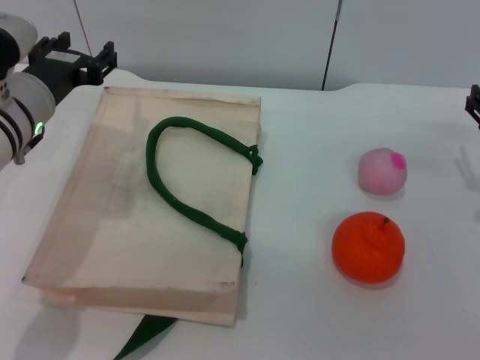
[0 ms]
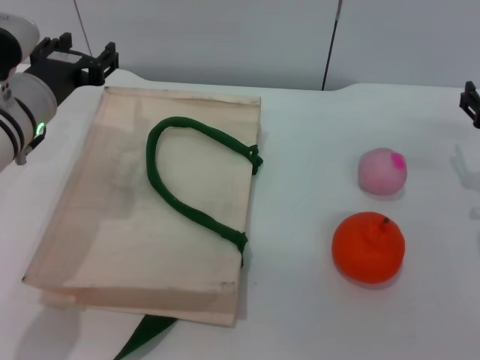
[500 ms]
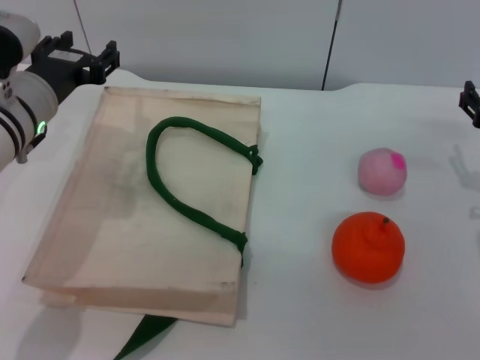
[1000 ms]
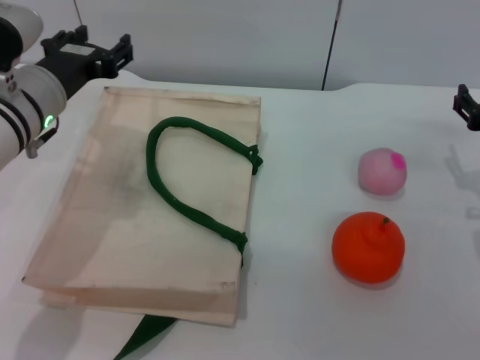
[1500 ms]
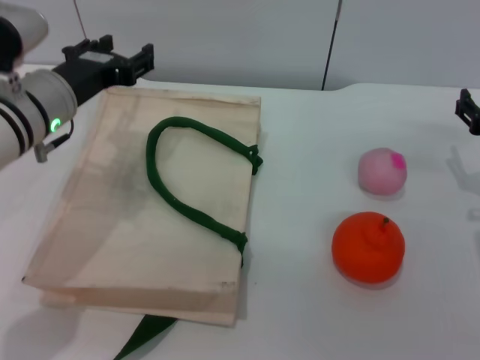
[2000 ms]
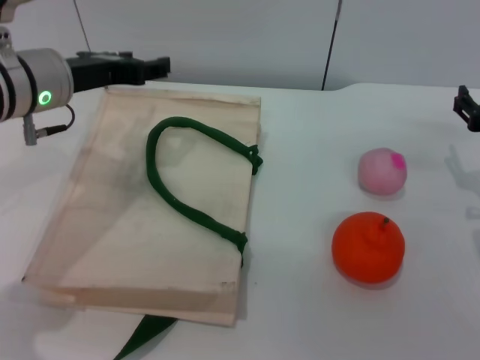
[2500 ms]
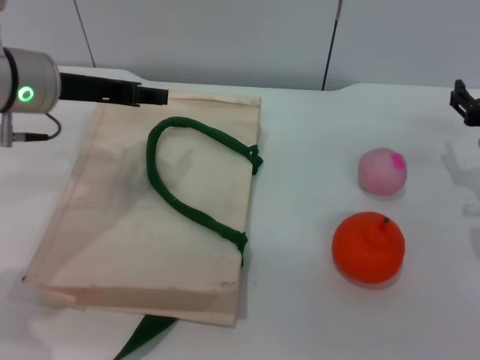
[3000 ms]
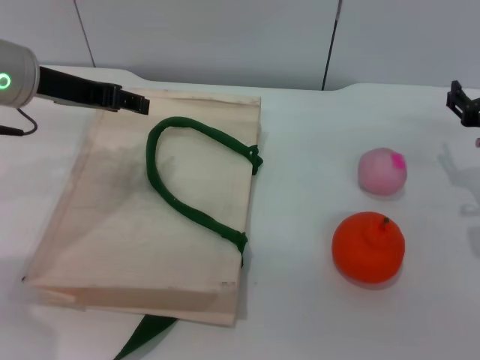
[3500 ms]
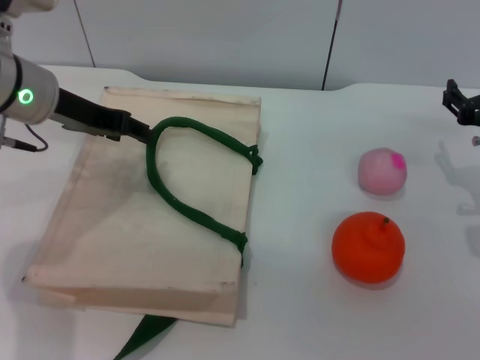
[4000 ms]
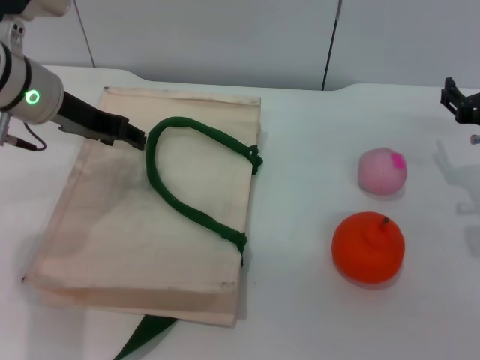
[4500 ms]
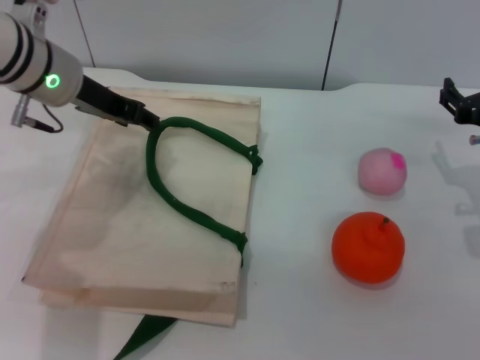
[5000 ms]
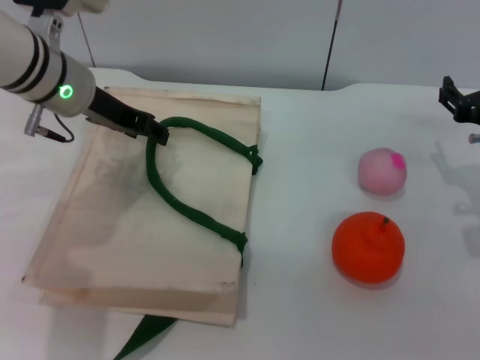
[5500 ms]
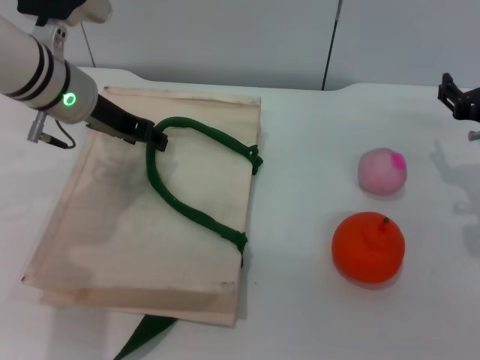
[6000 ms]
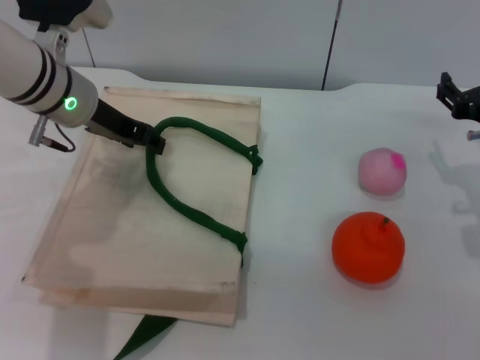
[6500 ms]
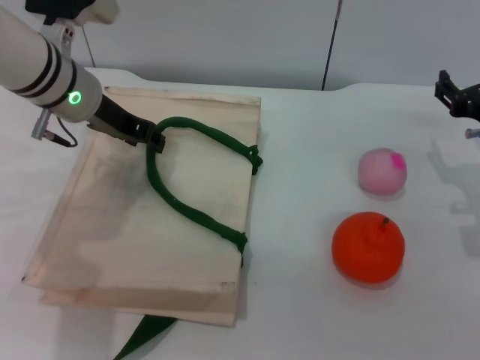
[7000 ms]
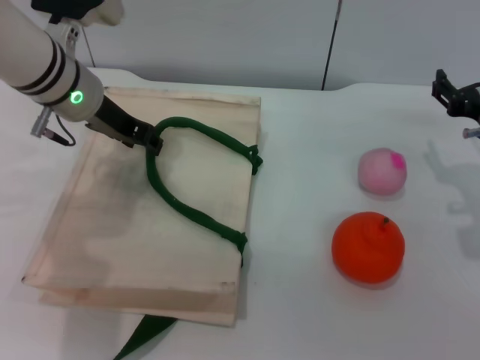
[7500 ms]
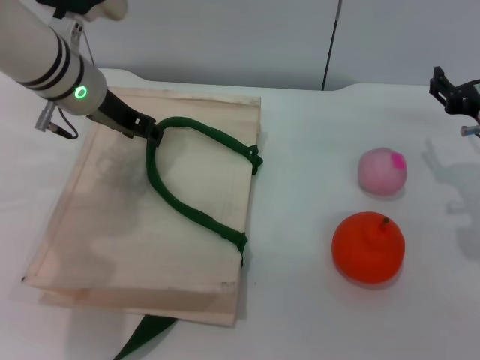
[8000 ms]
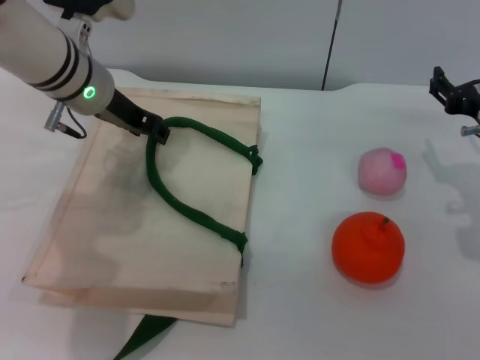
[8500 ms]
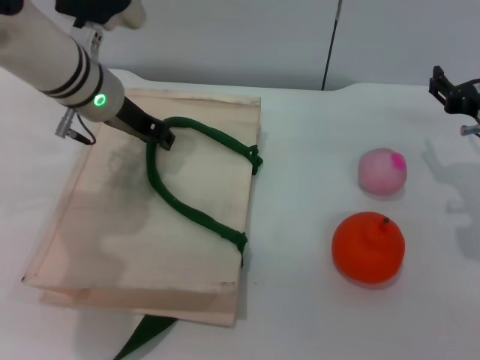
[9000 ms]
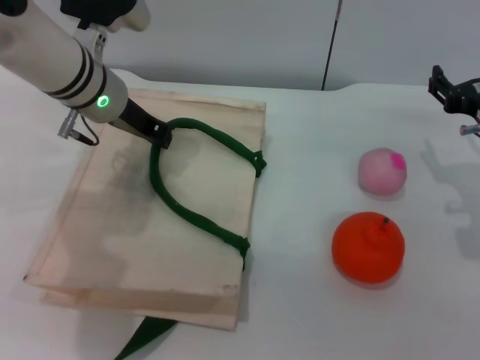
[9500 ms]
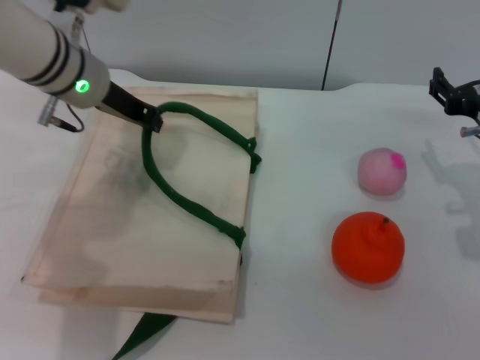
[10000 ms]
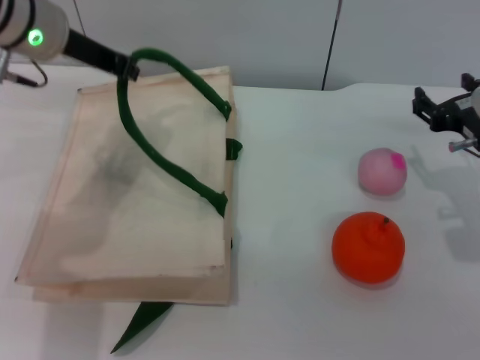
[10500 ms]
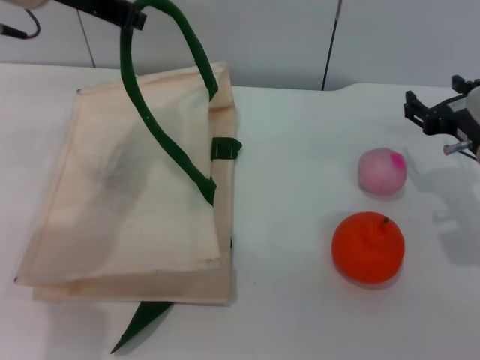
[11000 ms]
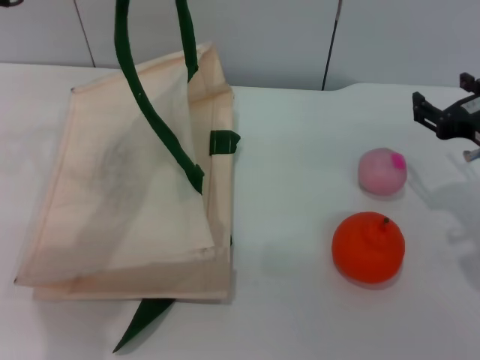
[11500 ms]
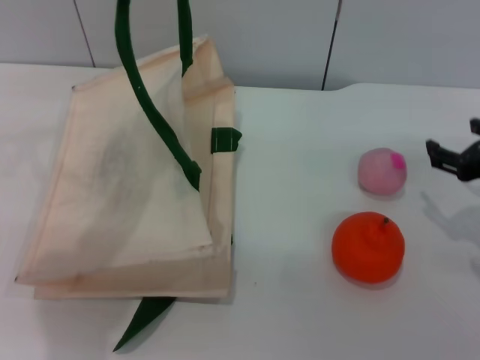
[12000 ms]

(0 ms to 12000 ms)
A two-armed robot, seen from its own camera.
Task of the whole recording: pick up the orange and peach from the table and place it in the white handbag.
Step, 0 ms - 10500 ms: Lift the woven bag with the left gripper to open it.
0 ms - 2000 ms: The grippers move only a little.
2000 ms - 4000 ms: The left gripper ends up some 5 cm from where it was.
4000 ms - 8000 ms: The grippers stay close to where they were, moving slightly.
8000 ms - 10000 ms: The left gripper closes its fingers.
10000 ms - 12000 ms: The left gripper goes approximately 15 cm upward. The right gripper heads backward, covering some 5 cm.

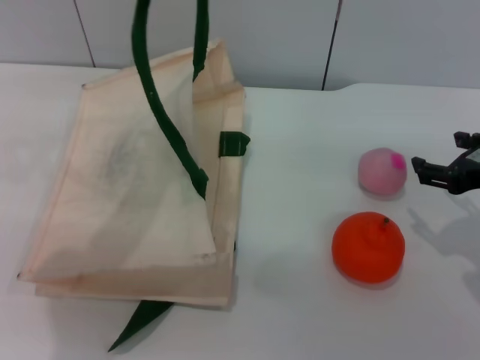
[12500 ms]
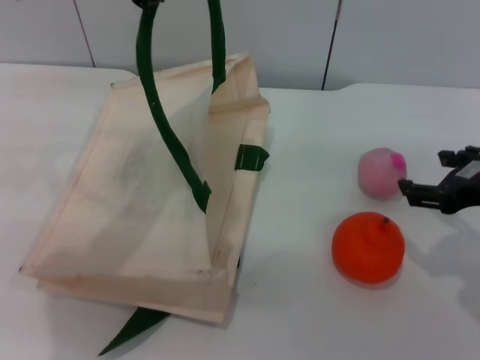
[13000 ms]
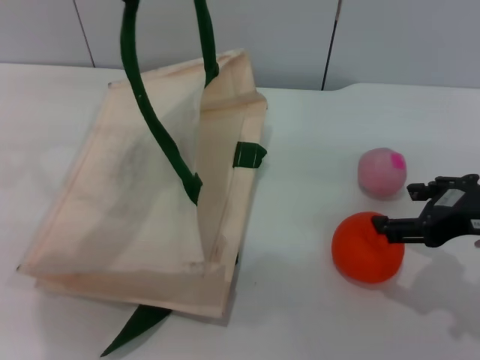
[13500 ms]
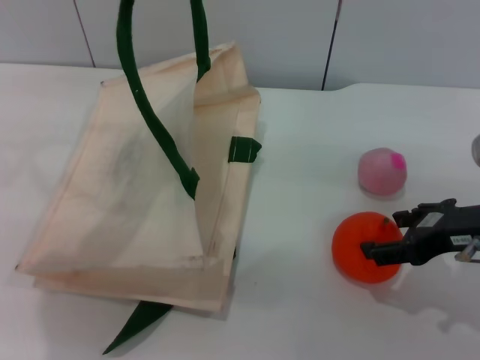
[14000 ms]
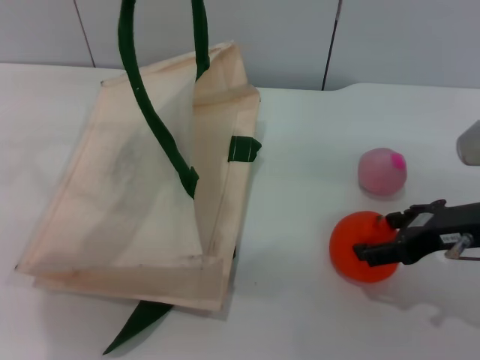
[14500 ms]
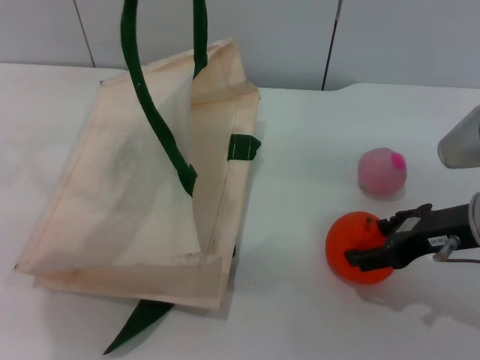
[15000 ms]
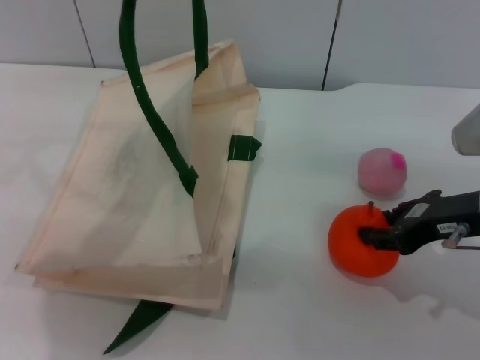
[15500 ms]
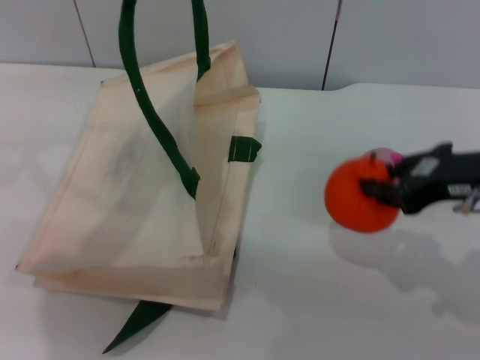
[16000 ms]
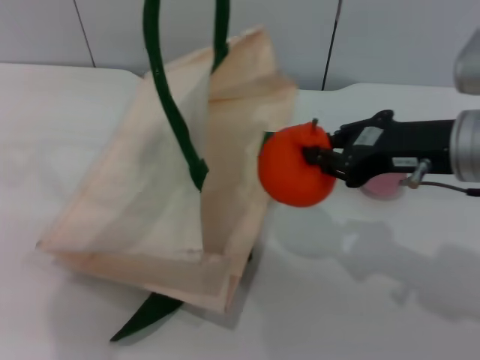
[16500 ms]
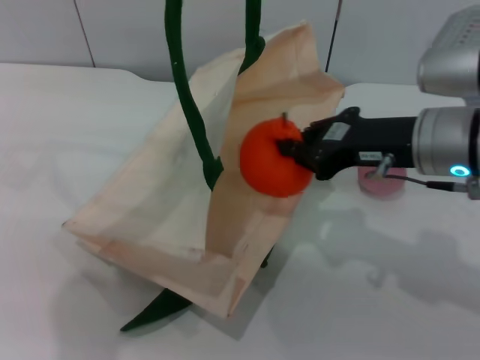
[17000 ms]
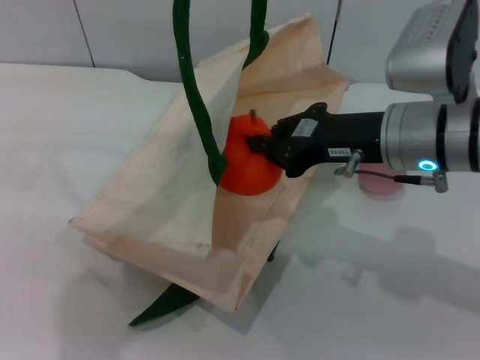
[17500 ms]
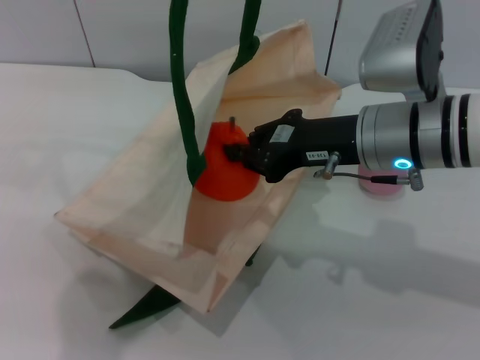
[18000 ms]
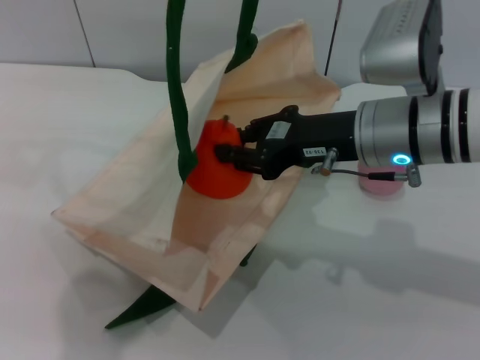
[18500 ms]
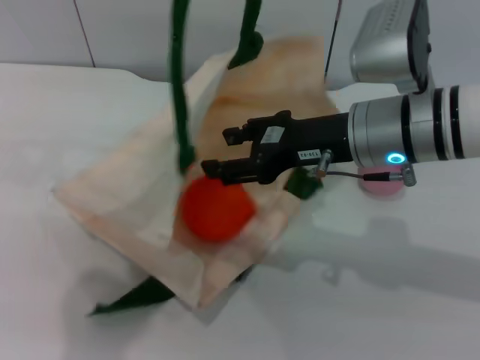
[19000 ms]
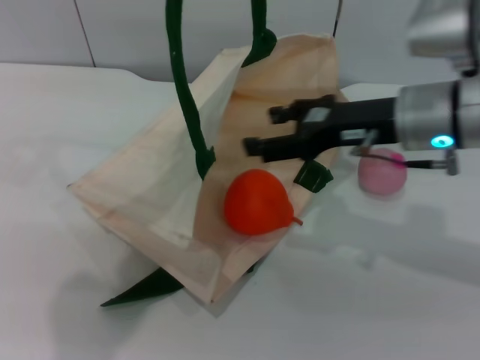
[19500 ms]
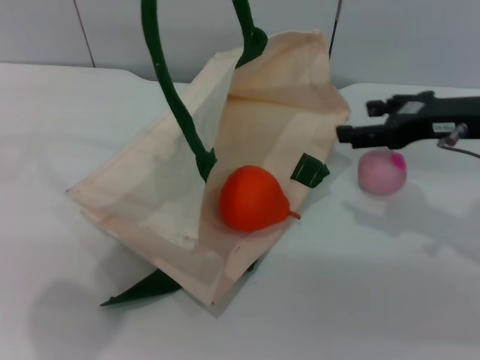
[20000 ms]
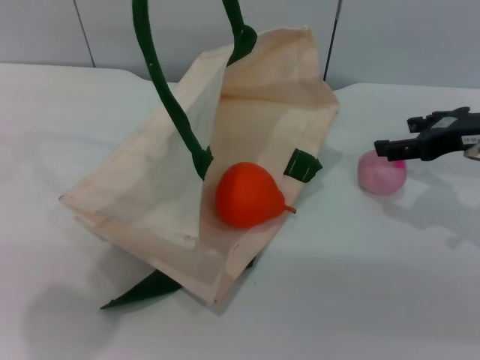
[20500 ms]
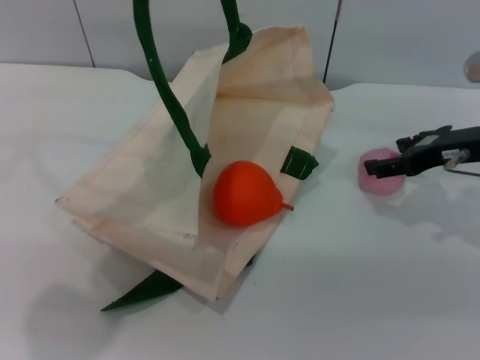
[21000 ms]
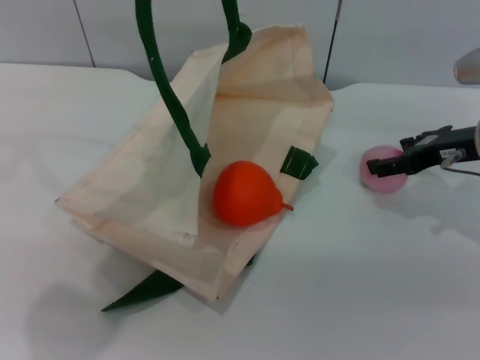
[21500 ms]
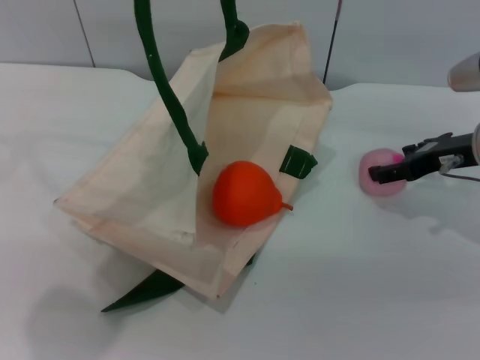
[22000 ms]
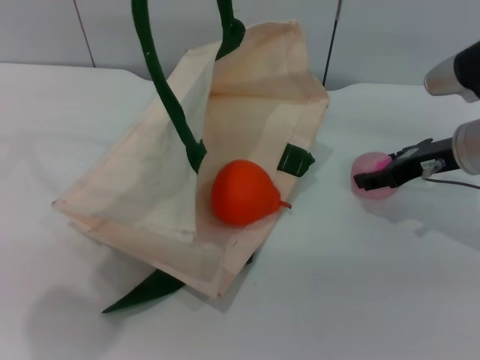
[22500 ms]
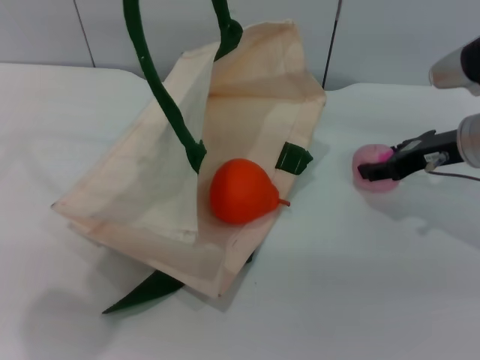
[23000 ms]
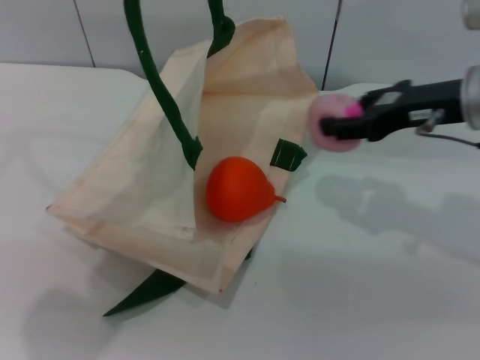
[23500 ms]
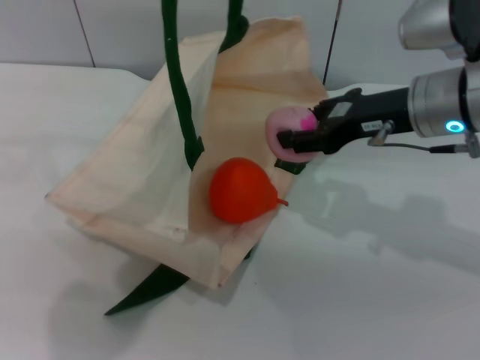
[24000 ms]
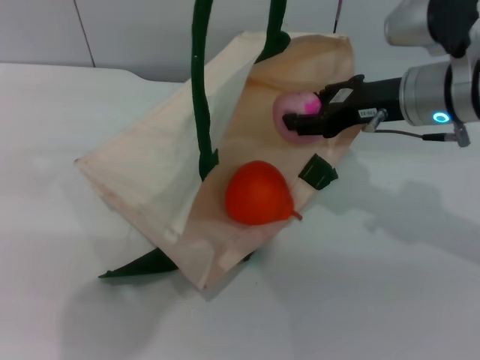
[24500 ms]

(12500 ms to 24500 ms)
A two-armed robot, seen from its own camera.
Task of the whole recording: pick up the orange and peach from the table and place it in the white handbag.
Step, 12500 ms - 15500 ms: Pick up the orange with the right gripper.
Step, 16500 ms - 19000 ms: Place the orange into the woven bag with the right gripper.
Step, 19500 ms - 23000 ms: Pick up the peach with the right gripper.
14500 ms - 16500 ms: The right gripper changes place by about 5 cm, and closes up.
16500 ms - 18500 ms: The right gripper travels to the left by some 5 cm.
18500 ms - 20500 ms: The right gripper shifts roughly 15 cm to the right, and opens its fingers.
20500 ms - 22500 ms: The right gripper moves approximately 5 cm.
22500 ms - 24500 ms: The right gripper heads to the left, covering roughly 5 cm, and closes.

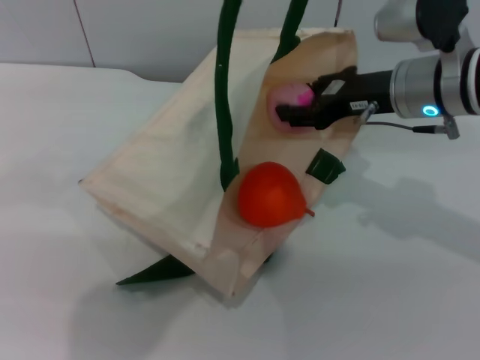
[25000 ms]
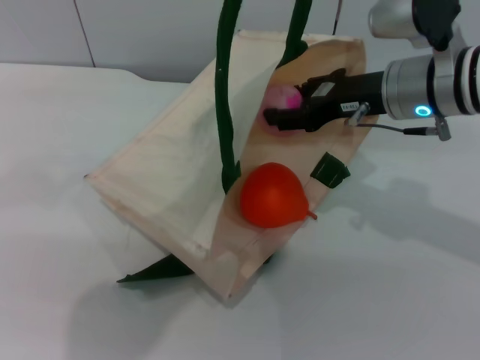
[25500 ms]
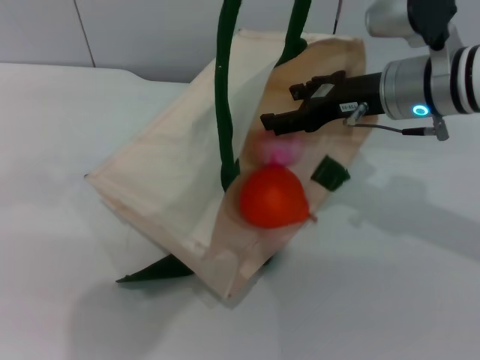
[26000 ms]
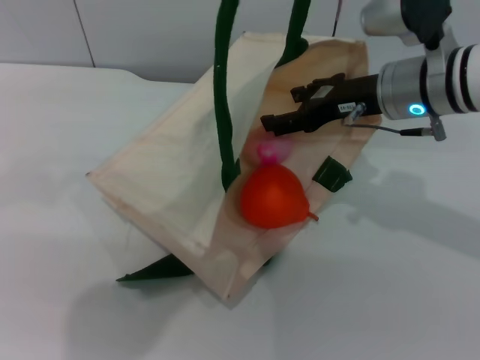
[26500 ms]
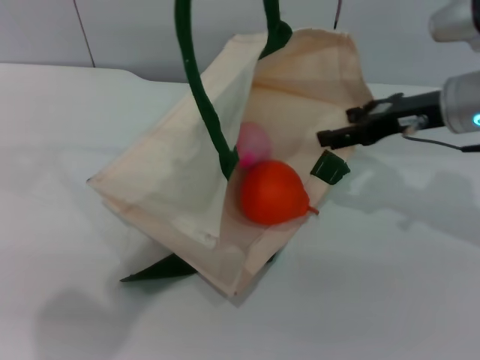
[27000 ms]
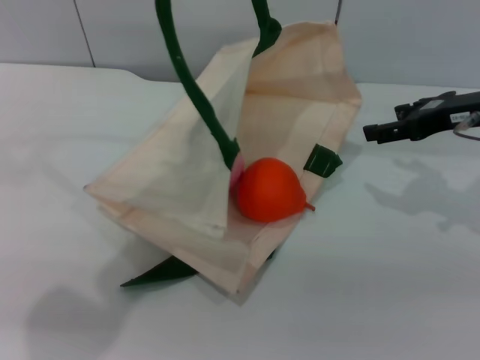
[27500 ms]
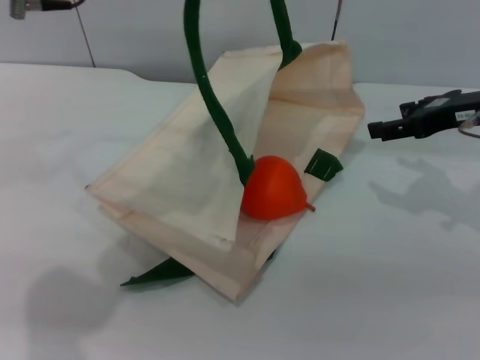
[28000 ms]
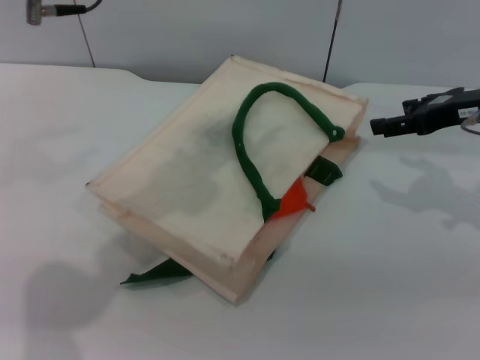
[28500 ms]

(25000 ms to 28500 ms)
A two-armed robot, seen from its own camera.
Task of the whole recording: pick up the orange and peach from the table and place it in the white handbag.
Step, 27000 ms - 28000 ms: Lower the woven bag with the left gripper to close it.
25000 ms - 27000 ms: The right gripper heads to the right, covering approximately 5 cm, and opens.
27000 ms - 28500 ms: The left gripper ends up some 5 cm from where it was, and opens its fingers. The right gripper travels to the right by about 5 cm.
